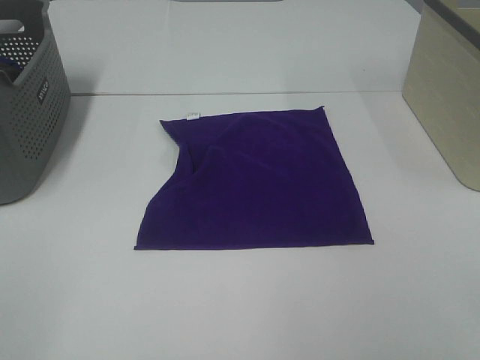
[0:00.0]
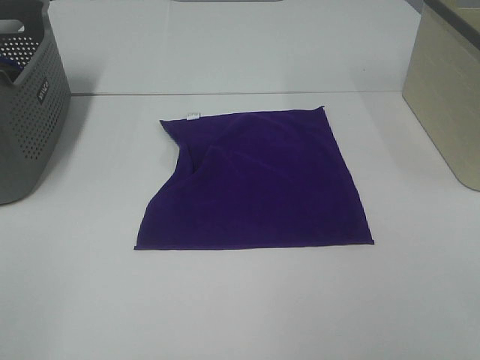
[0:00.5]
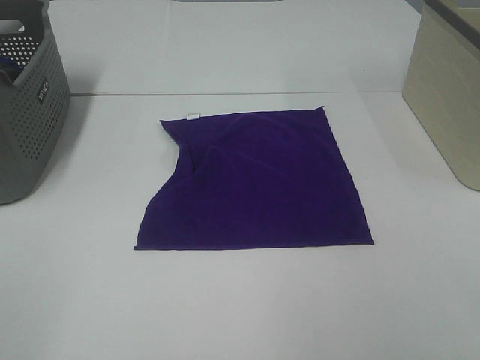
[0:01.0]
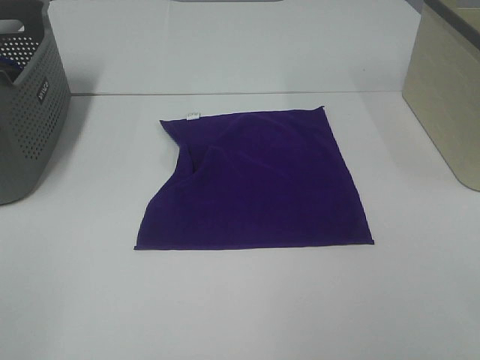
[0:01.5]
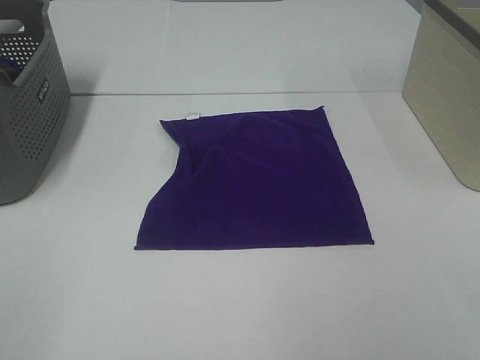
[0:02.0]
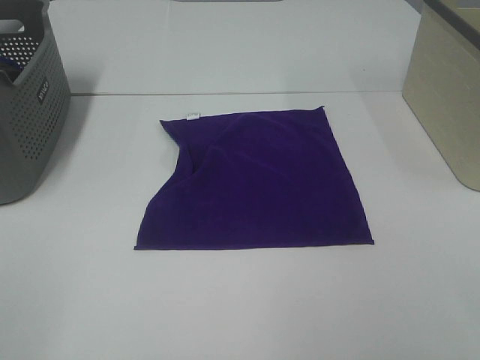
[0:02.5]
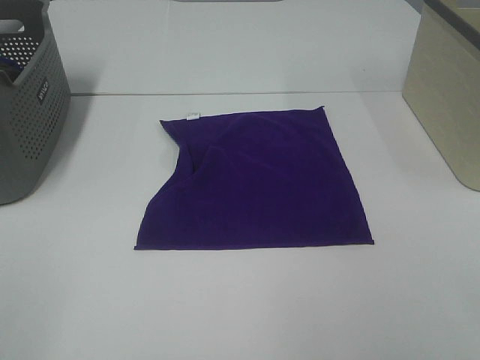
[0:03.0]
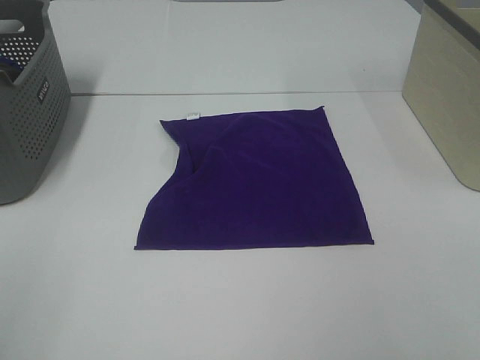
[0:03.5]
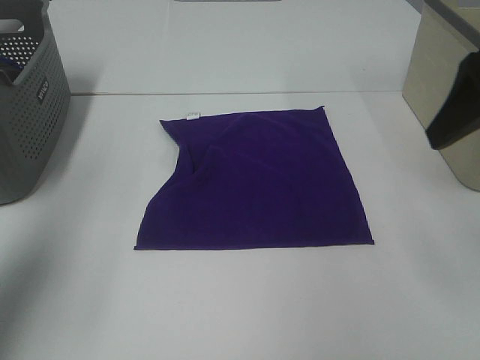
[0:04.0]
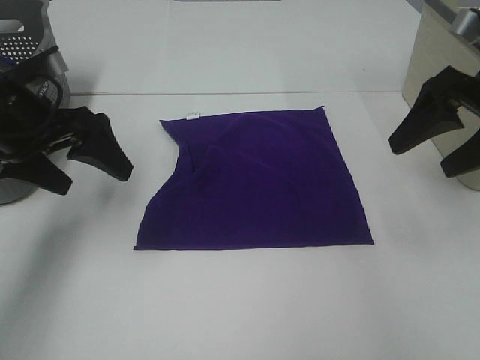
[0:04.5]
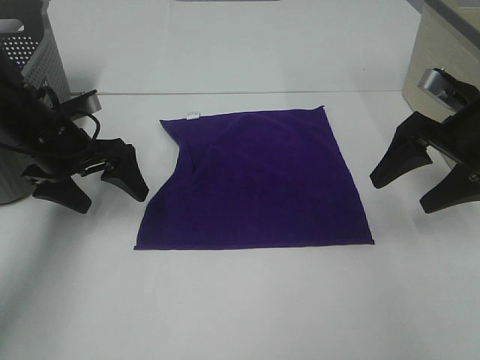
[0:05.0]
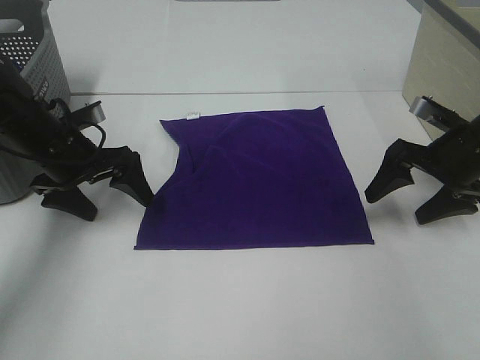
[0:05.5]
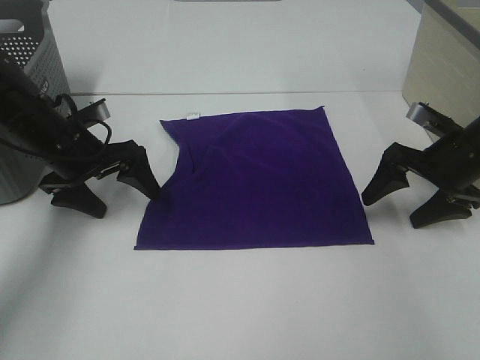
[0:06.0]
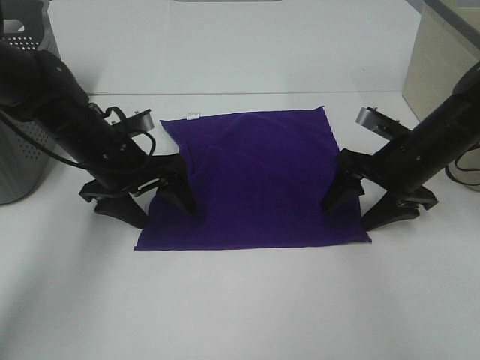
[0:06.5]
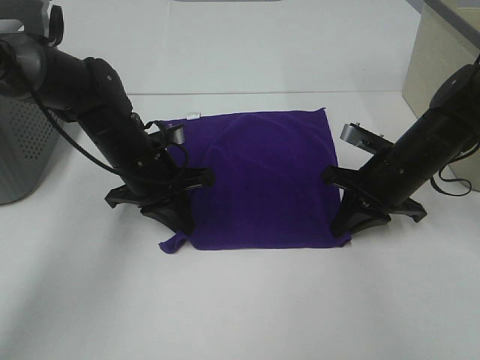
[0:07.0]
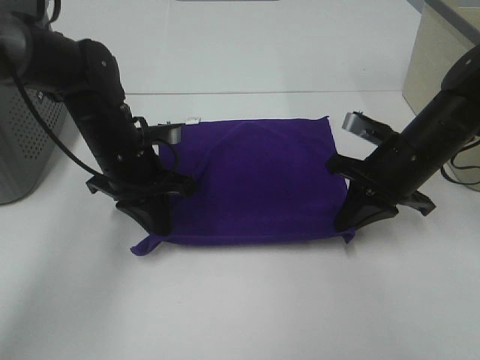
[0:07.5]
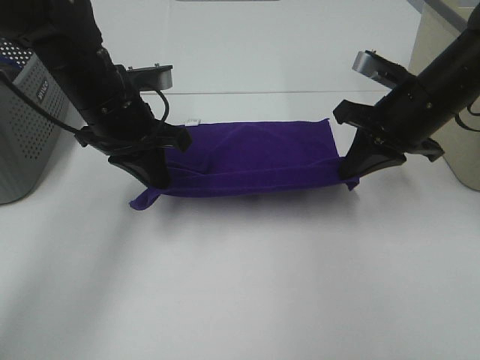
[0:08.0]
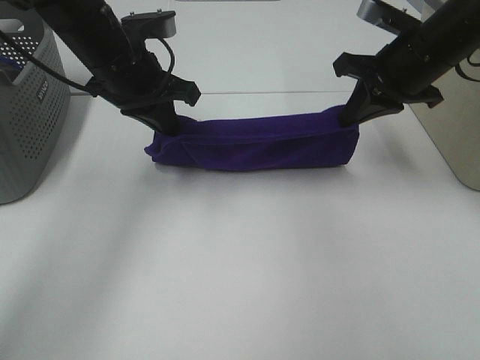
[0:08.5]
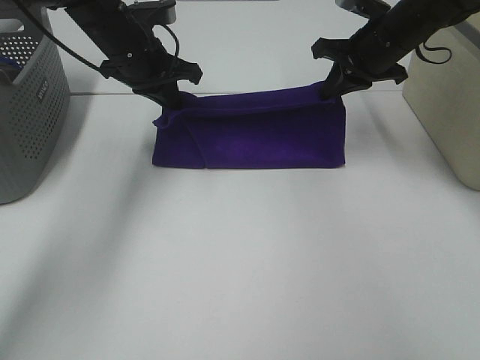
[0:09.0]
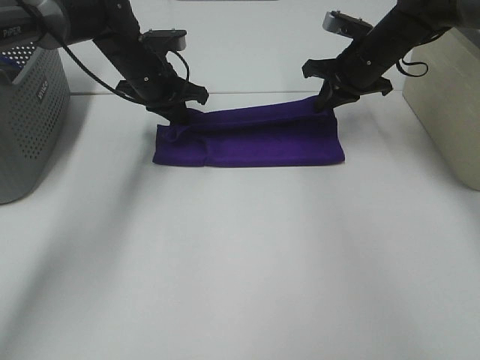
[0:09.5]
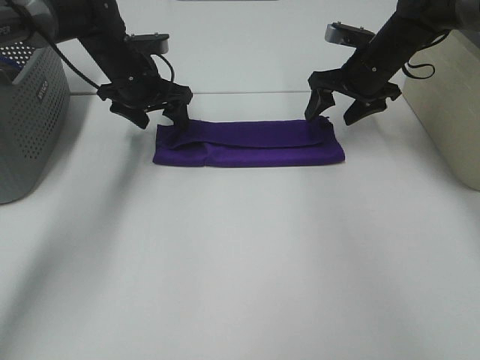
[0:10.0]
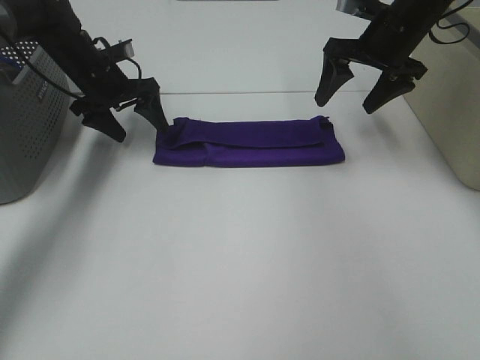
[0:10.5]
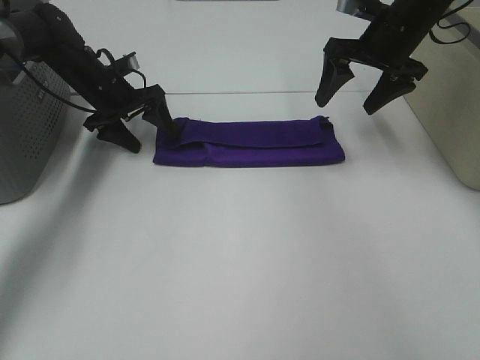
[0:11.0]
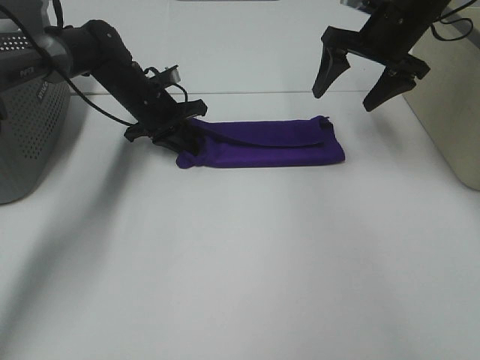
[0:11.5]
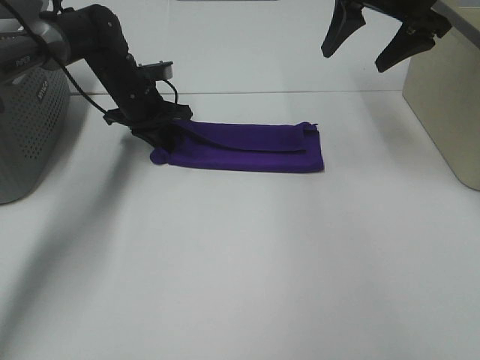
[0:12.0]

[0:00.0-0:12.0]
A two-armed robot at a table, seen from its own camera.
Task of the whole recording: Fold towels.
Step, 0:00.0 to 0:07.0: Left hand: grab the bottom left corner of purple towel.
Step, 0:00.0 to 0:07.0: Right hand: grab the bottom right corner of purple towel.
Step, 0:07.5 to 0:09.5: Left hand: fold the purple towel up.
Step, 0:07.5 to 0:09.5: Right hand: fold the purple towel up.
0:00.0 to 0:02.0: Neither gripper changes place.
0:02.0 to 0:04.0: The grippers both shift forward by roughly 20 cm.
0:04.0 to 0:06.0: The two grippers go roughly 25 cm downward and forward.
0:06.0 to 0:08.0: The right gripper is displaced to the left and upward by roughly 10 cm, and closes up. The left gripper goes about 10 cm to the right and upward, and closes up.
0:08.0 to 0:10.0: The grippers both shift forward by roughly 15 cm. The right gripper opens up. The left gripper opens its fingers.
0:10.0 to 0:12.0: The right gripper moves upward and backward, about 15 cm. The left gripper closes up.

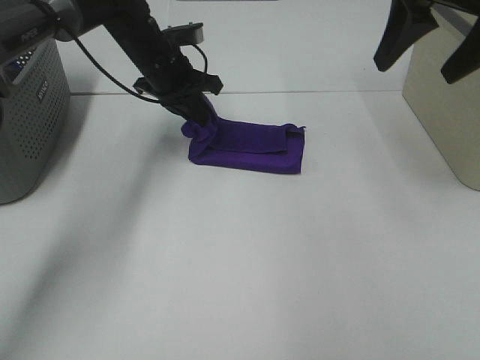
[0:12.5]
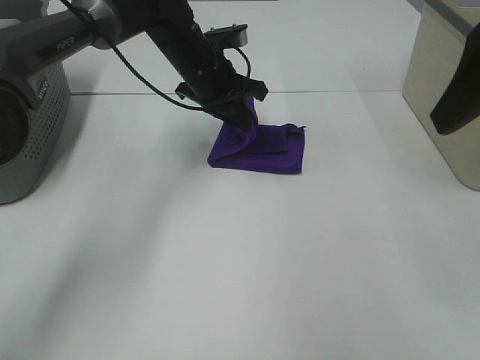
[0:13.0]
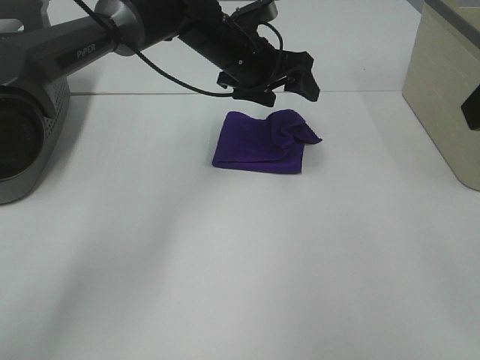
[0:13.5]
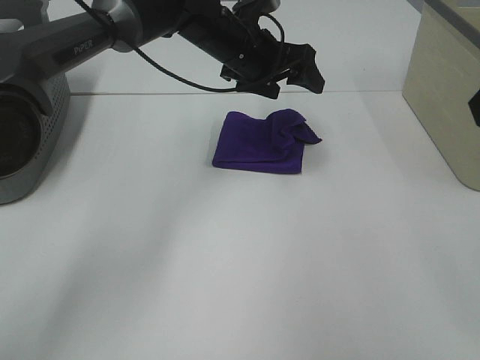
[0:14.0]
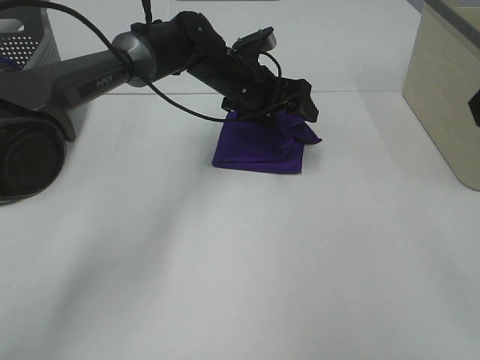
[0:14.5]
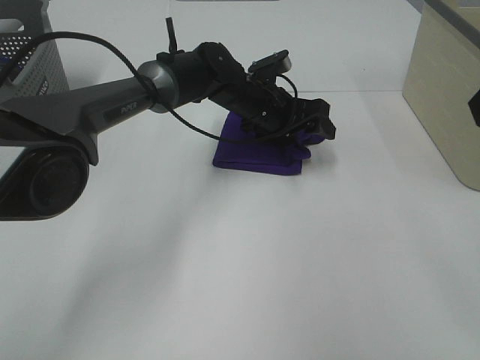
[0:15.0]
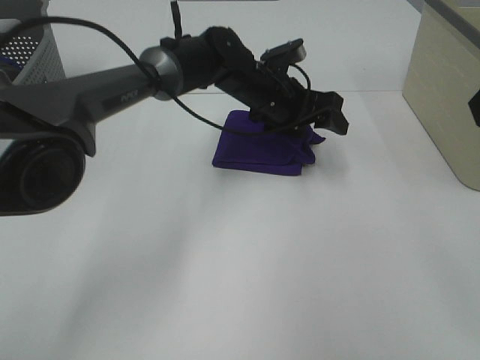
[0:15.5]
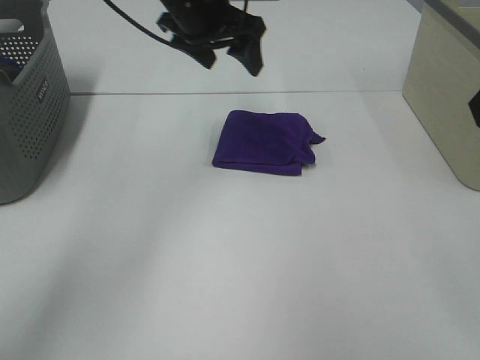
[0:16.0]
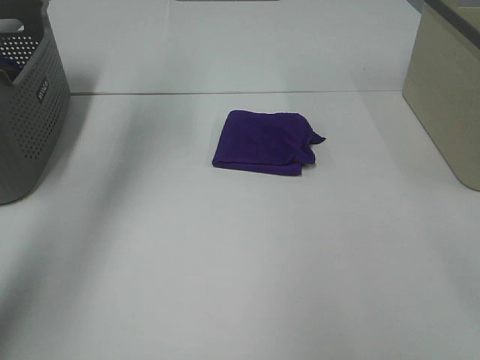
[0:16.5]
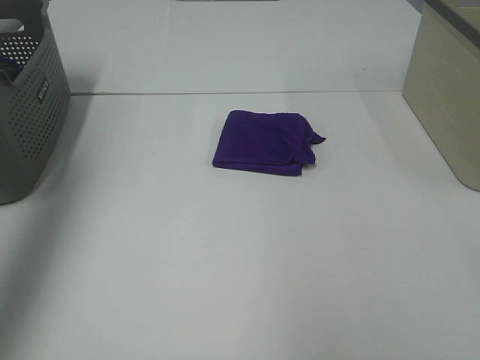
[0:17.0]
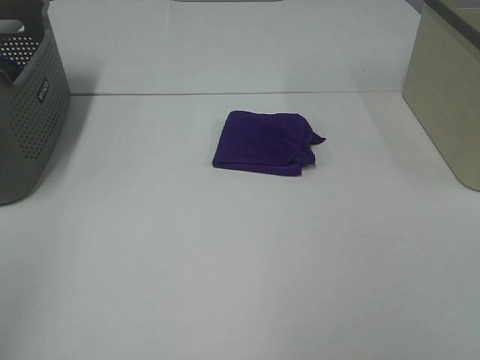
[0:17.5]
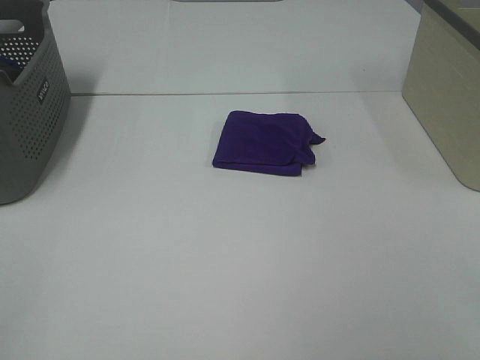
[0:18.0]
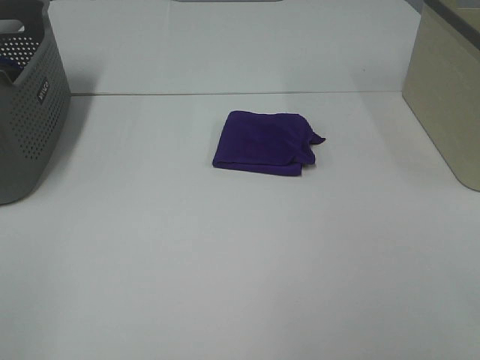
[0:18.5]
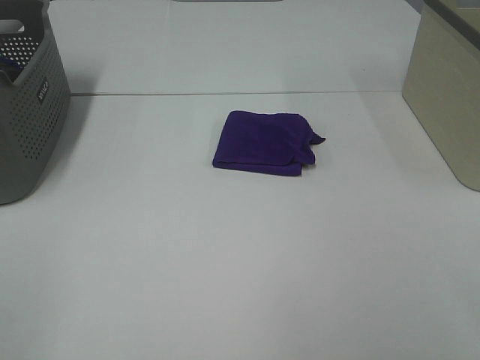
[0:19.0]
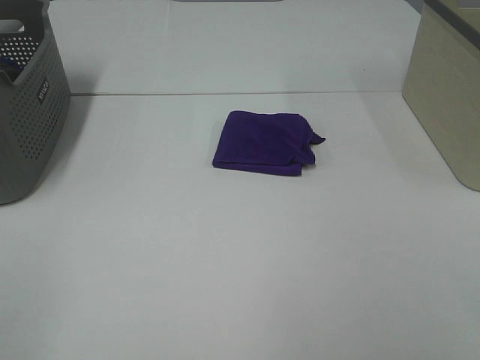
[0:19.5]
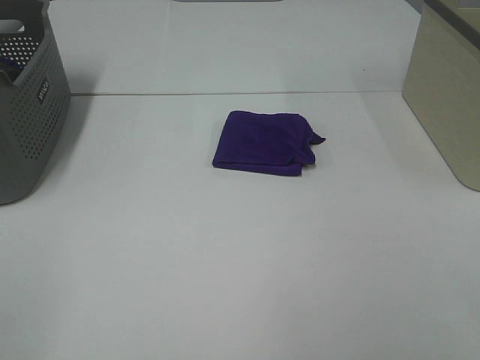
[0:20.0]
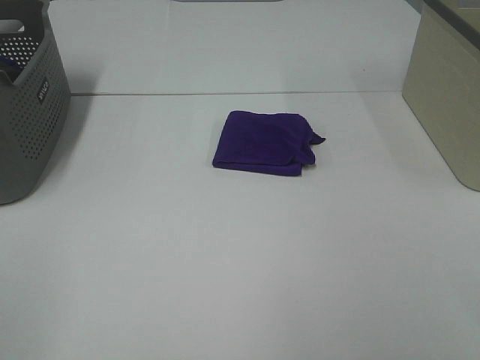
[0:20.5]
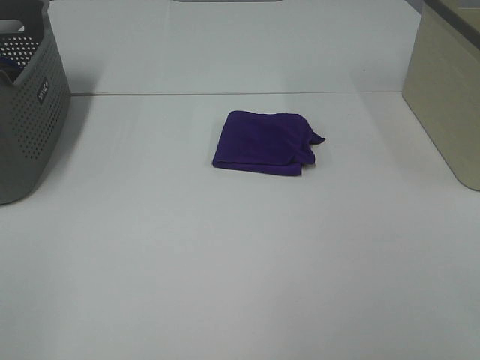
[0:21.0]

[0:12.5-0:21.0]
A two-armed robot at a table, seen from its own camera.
Task of the whole recording: Fold towels.
Step, 0:13.5 to 0:15.5: Left hand: adjust the purple towel.
0:12.5 to 0:14.5: The right gripper goes approximately 15 cm backward. The left gripper heads to the right, covering some 10 cm, and opens up.
0:14.5 to 0:16.5: The left gripper goes some 35 cm upward and to the left.
0:16.5 to 0:19.0: The left gripper goes some 50 cm backward.
0:19.0 to 0:21.0: Both grippers stay put.
